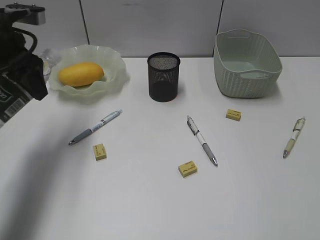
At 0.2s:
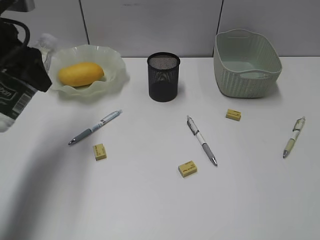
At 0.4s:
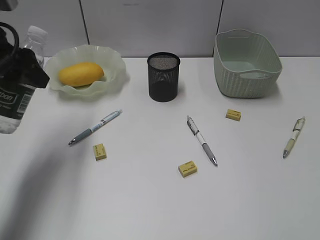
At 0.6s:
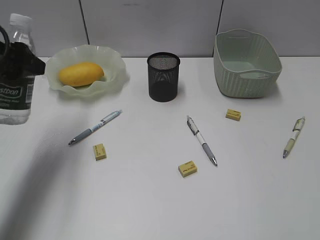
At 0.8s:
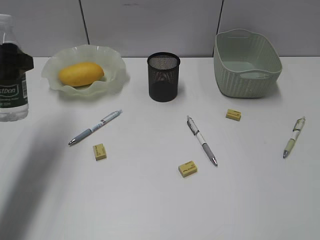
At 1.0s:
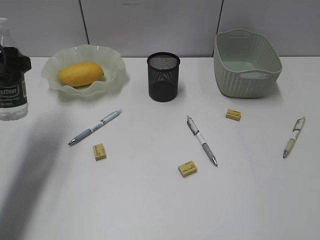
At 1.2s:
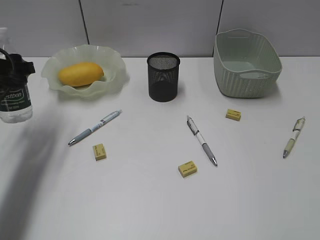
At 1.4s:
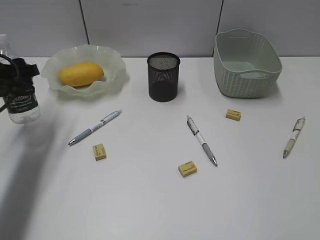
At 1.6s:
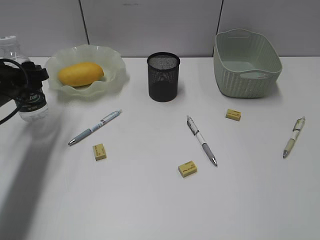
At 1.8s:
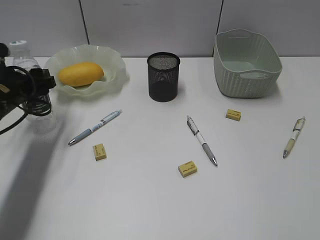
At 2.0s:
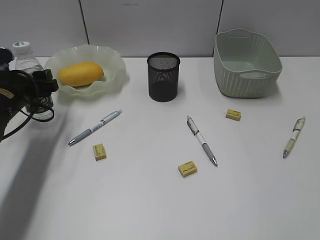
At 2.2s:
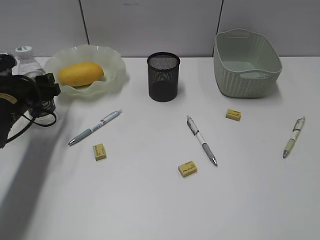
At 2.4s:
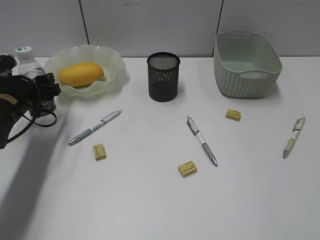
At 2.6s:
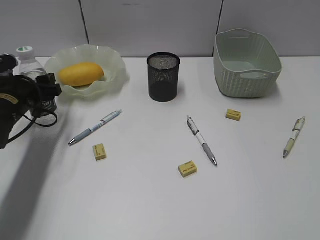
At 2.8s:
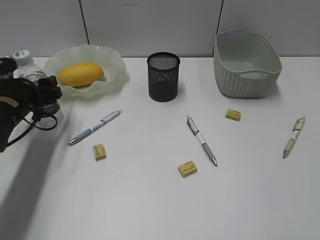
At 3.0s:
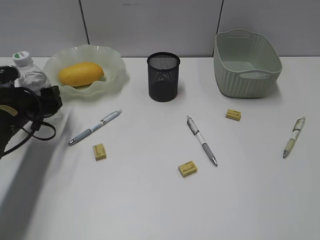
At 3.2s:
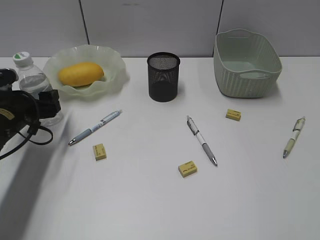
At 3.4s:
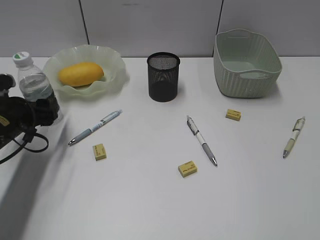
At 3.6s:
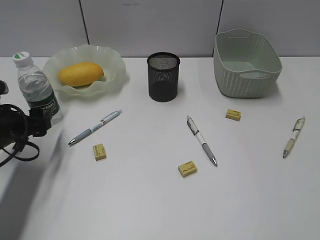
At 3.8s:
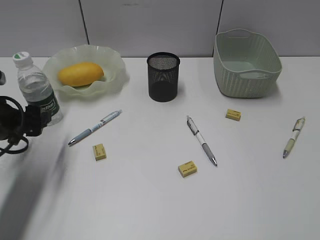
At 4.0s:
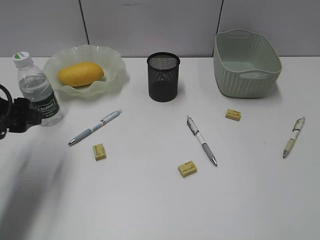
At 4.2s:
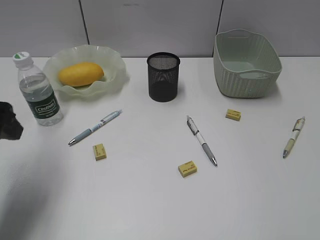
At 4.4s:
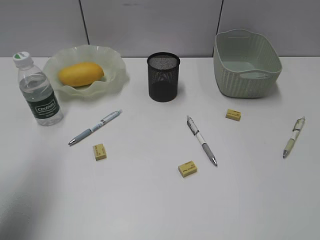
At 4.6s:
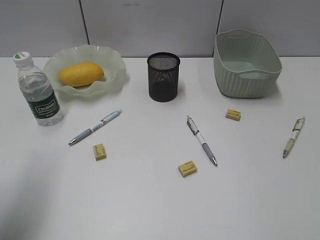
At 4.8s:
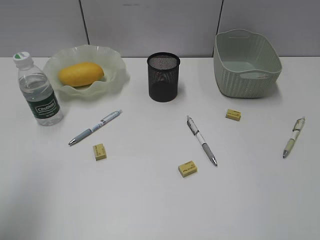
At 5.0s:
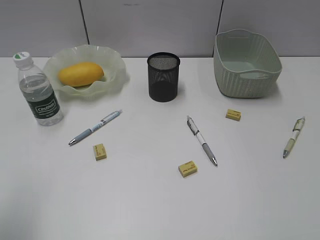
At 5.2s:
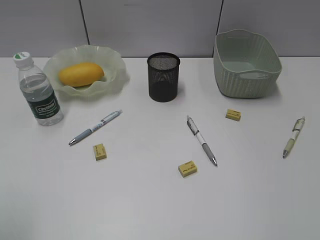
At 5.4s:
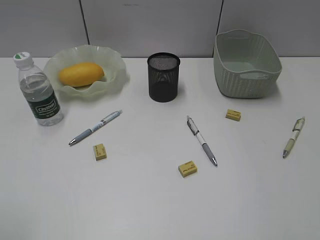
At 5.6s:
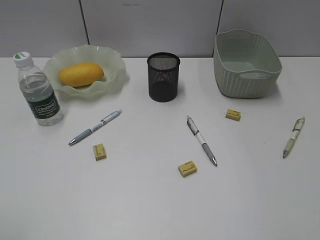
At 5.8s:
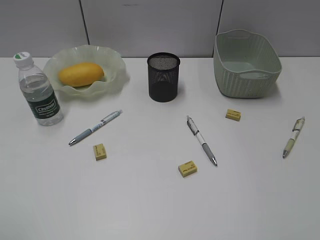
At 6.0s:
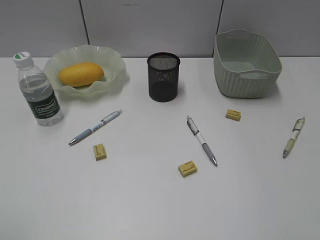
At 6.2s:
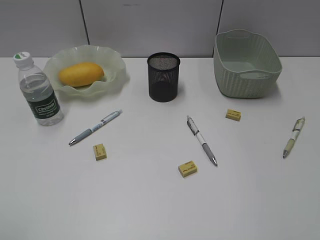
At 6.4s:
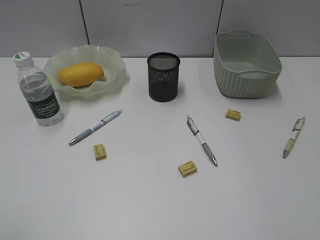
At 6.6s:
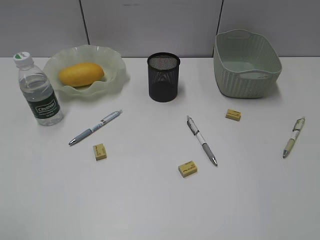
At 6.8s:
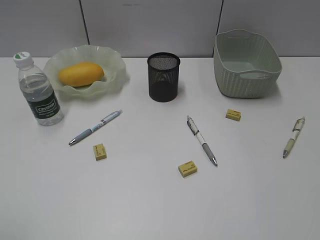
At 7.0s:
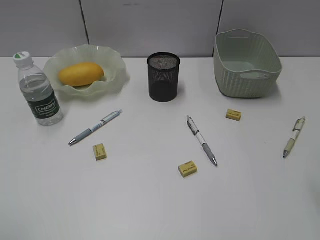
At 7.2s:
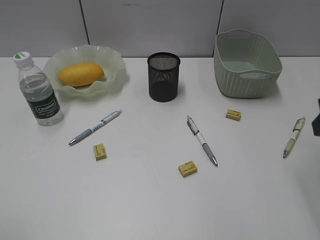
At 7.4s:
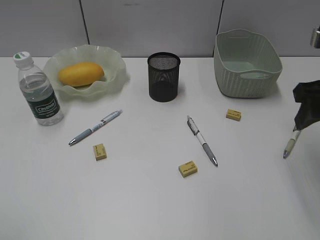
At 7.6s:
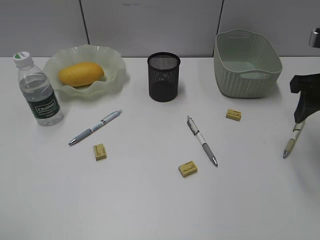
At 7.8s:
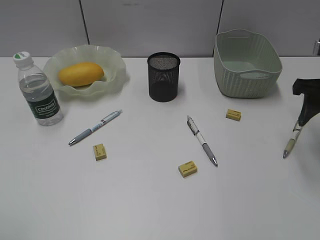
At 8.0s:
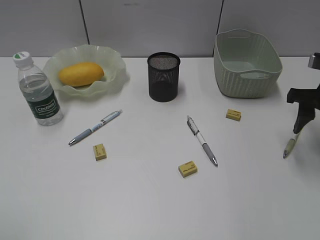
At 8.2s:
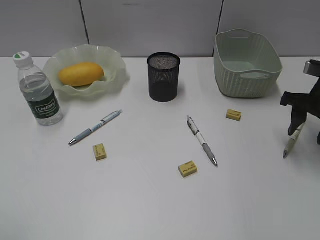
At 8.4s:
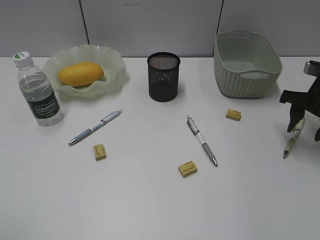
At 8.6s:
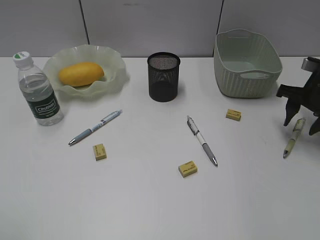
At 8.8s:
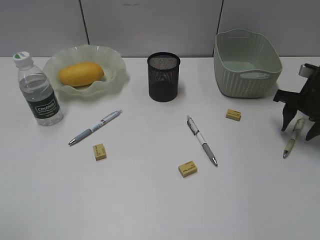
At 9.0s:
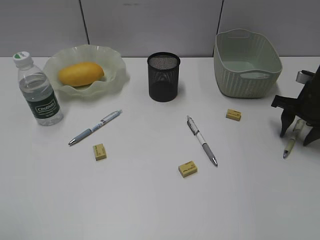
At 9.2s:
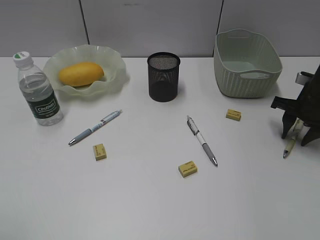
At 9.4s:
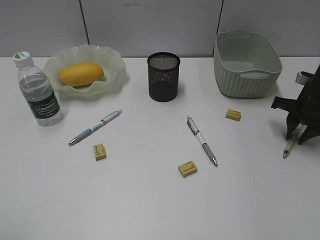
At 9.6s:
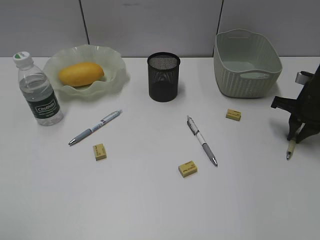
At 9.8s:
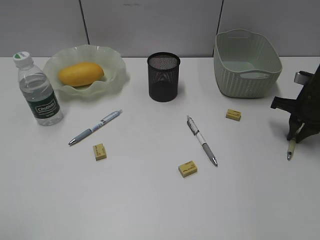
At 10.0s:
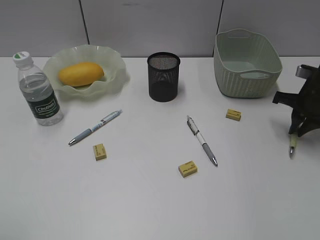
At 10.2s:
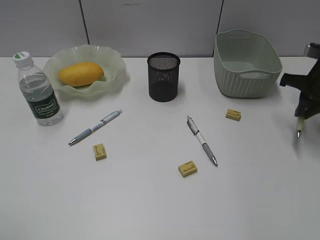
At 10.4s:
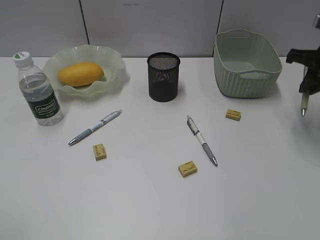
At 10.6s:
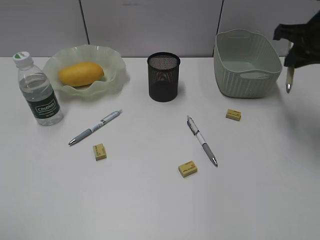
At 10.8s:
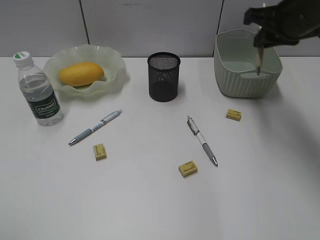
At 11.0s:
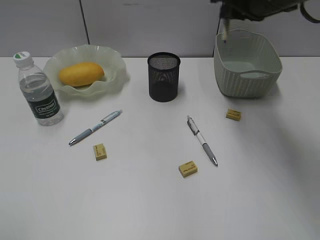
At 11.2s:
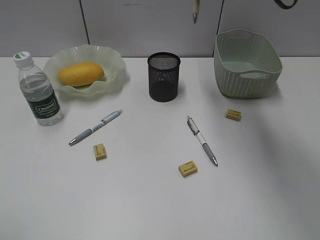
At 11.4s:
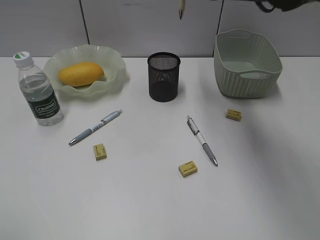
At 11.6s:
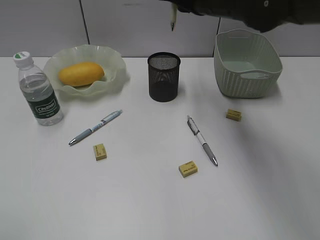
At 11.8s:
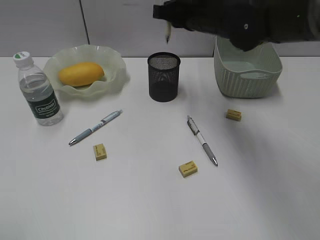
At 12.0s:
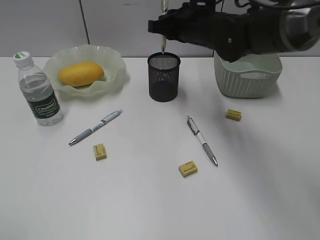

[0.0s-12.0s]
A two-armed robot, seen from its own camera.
Step, 0.0s to 3.4s: Stand the bottle with left gripper.
Step, 3.6s to 9.8s: Grasp the yellow pen with right gripper.
0.0s to 1.6s: The left gripper moves downward, roughly 10 cm.
1.6s to 3.0s: The left gripper goes roughly 5 cm downward.
3.0s to 4.4s: The left gripper is displaced upward and backward by approximately 20 cm.
4.4s to 6.0s: The left gripper travels backward by approximately 15 cm.
6.0s to 7.6s: The right gripper goes some 25 cm forward.
7.6s to 9.0s: The right gripper moves downward and forward, about 15 cm.
9.0s to 10.4s: The right gripper is displaced upward by some 10 cm, and closes its fingers.
10.4s to 12.0s: The right gripper goes roughly 25 cm to the left.

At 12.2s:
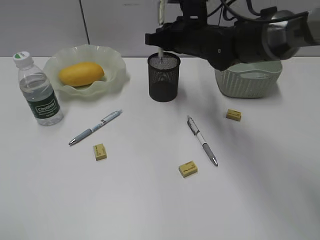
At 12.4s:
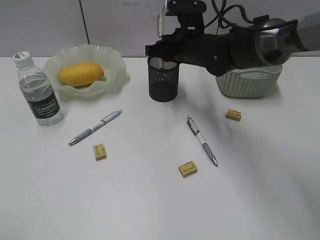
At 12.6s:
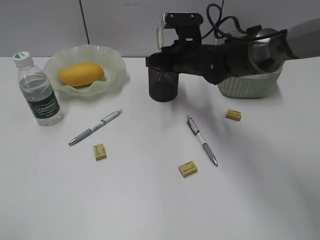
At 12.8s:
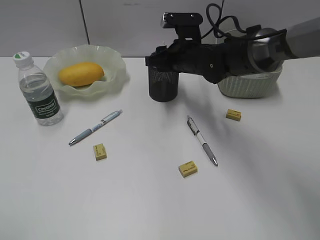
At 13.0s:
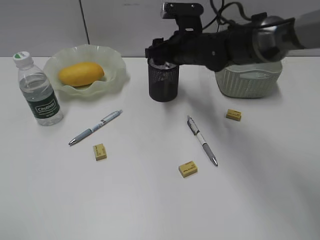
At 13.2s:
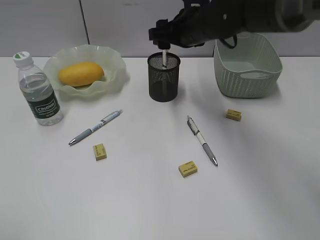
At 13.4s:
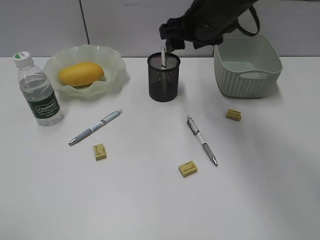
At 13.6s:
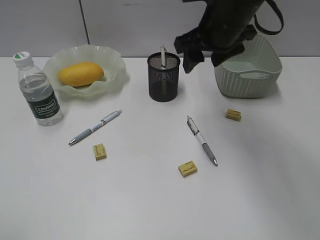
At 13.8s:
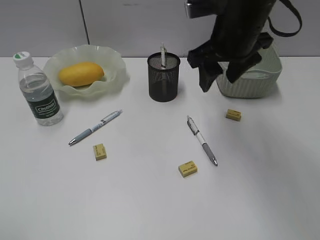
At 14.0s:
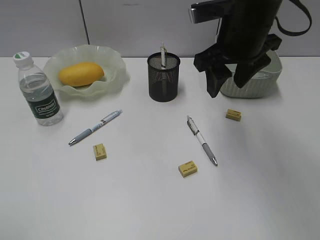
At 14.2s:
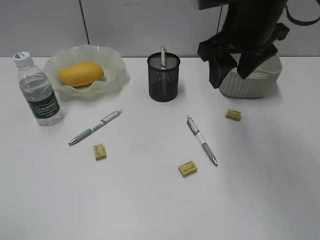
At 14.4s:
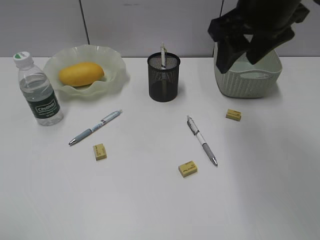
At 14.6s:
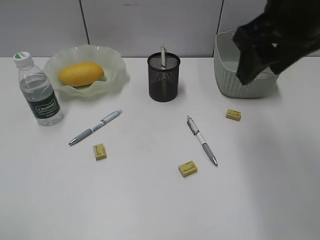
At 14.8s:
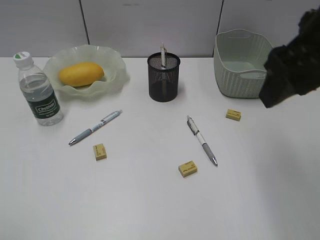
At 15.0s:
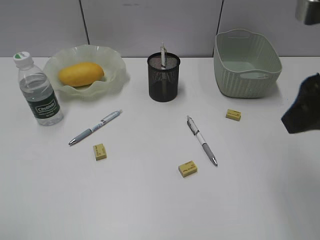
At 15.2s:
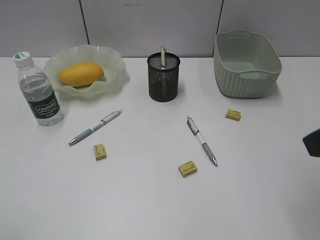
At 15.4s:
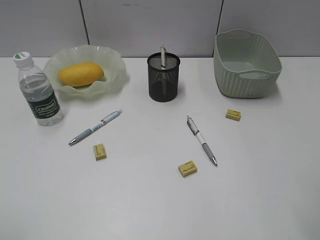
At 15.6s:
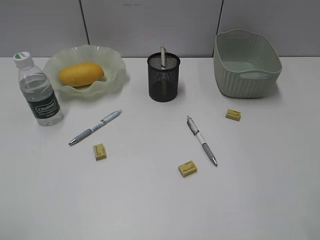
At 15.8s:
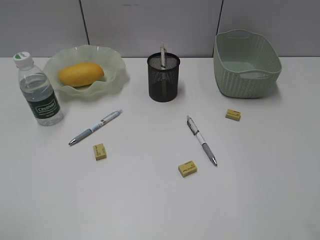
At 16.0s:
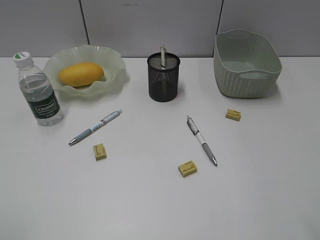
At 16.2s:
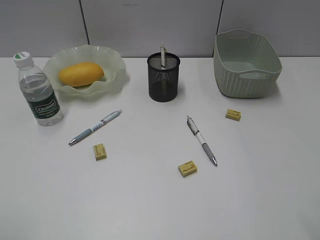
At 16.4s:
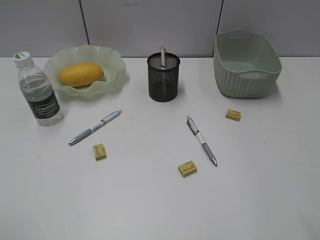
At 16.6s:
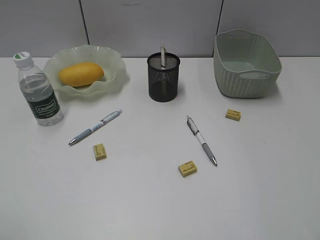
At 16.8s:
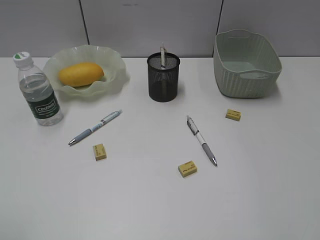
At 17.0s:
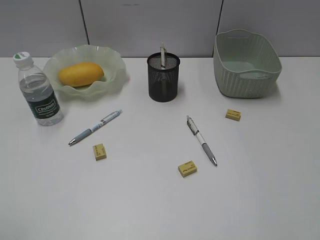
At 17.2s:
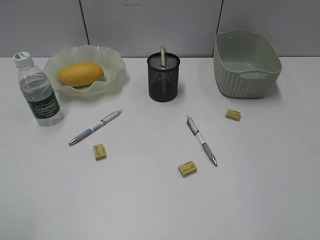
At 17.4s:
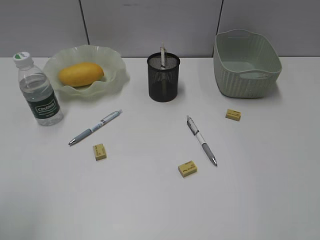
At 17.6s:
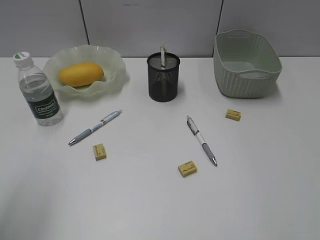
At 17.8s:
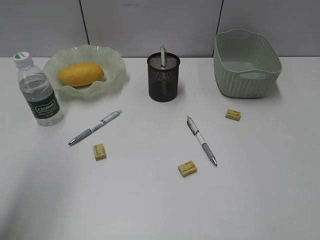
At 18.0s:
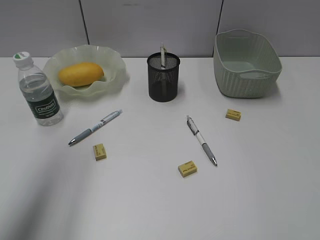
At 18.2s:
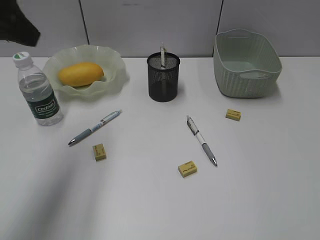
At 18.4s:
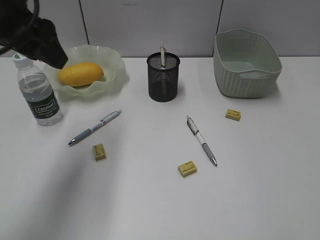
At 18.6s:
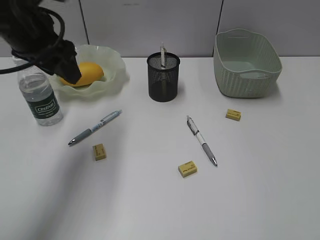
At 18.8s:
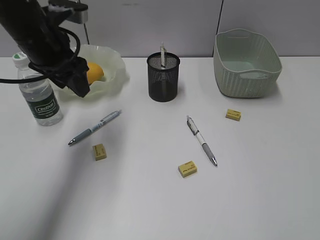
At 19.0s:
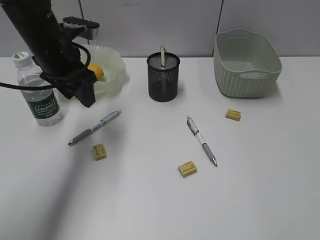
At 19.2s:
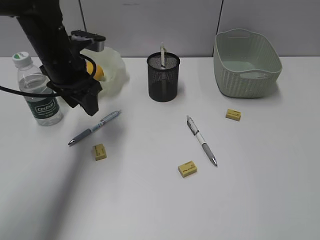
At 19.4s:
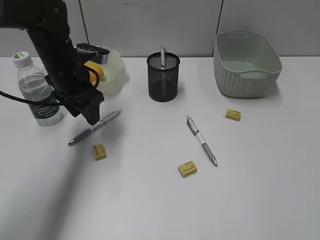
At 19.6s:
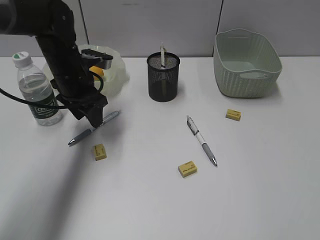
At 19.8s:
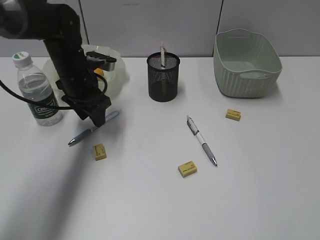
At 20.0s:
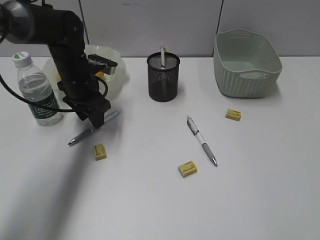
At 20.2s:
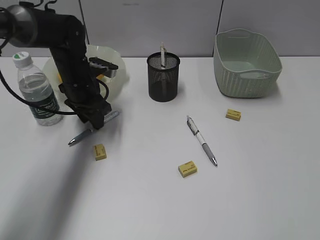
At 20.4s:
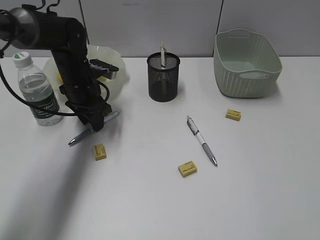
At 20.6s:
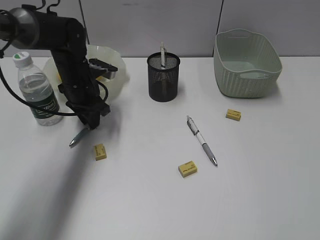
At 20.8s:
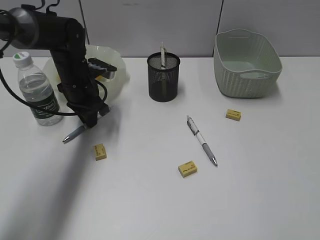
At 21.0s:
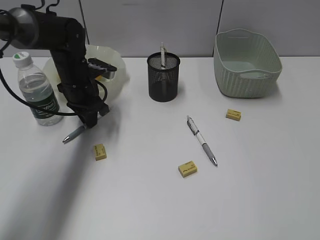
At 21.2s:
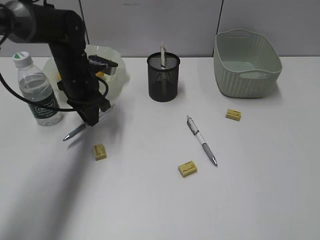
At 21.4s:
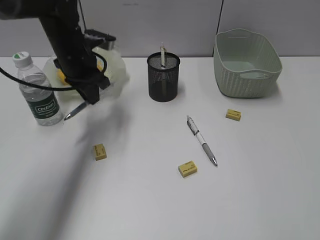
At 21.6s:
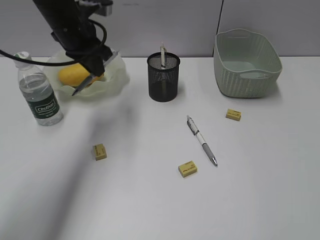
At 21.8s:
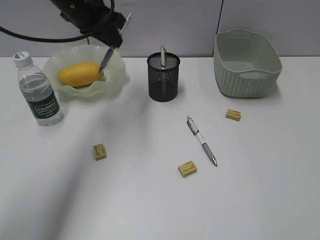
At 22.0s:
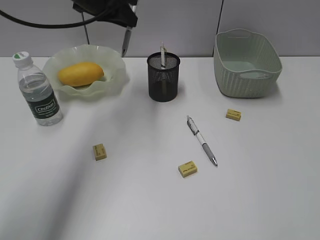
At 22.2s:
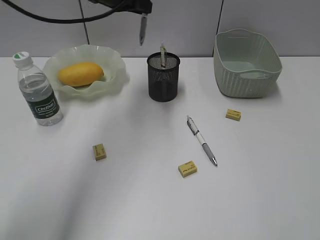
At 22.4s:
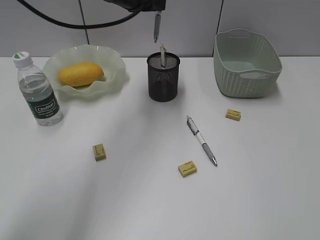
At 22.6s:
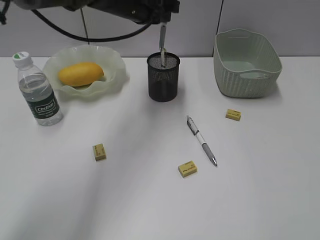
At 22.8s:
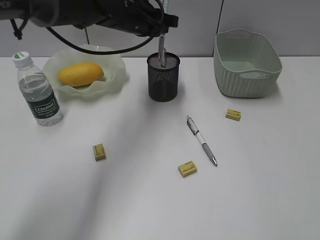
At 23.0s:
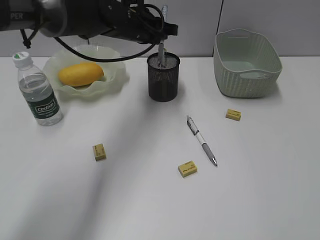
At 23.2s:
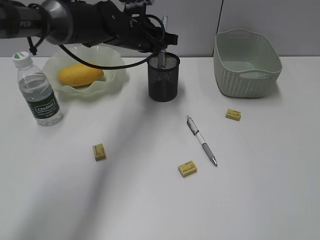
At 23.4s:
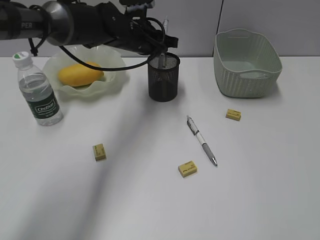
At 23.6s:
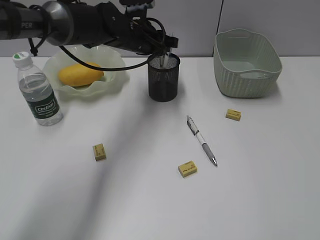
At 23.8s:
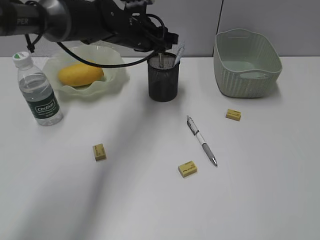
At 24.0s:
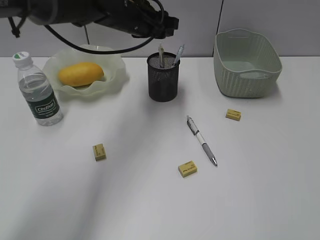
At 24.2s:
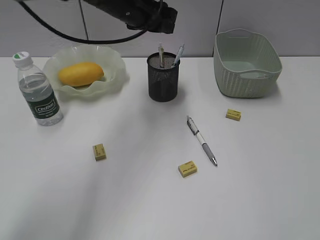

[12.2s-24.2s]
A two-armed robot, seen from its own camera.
Step, 13.2s to 21.0s: Grasp the blue pen with left gripper.
Step, 21.2s to 23.8s: Place the blue pen in pen holder with left gripper.
12.2s to 13.8s: The right gripper moves backward and upward, some 10 cm, and opens up.
13.8s to 15.2s: The right gripper heads backward and to the right, covering roughly 25 cm.
16.6s to 18.2s: The left gripper moves forward, some 25 cm.
18.2s to 19.8s: The left gripper is displaced downward and forward by roughly 25 cm.
19.8s to 21.2s: The left gripper closes.
21.2s to 22.6s: The left gripper shifts about 15 cm upward and to the right.
22.6s to 24.2s: The left gripper moves some 5 cm downward and comes back, and opens.
